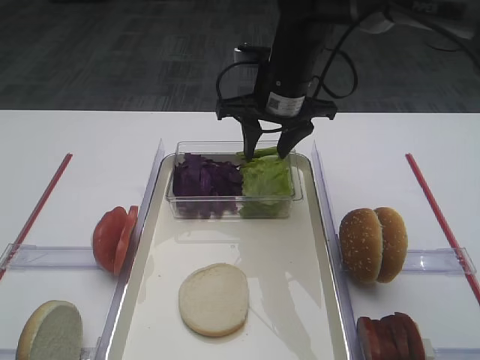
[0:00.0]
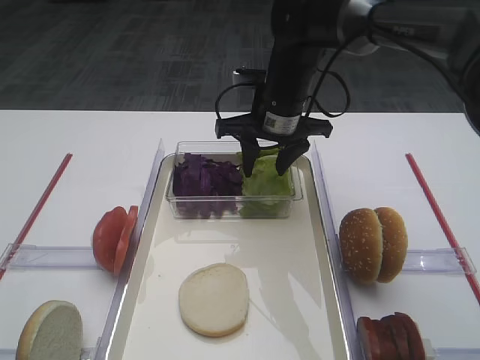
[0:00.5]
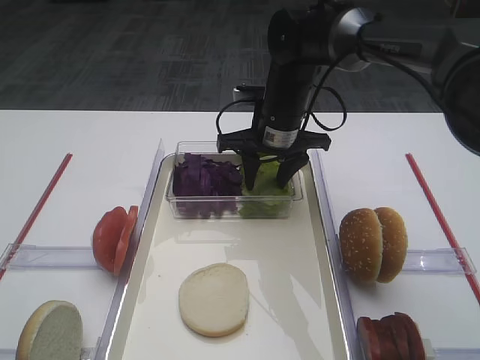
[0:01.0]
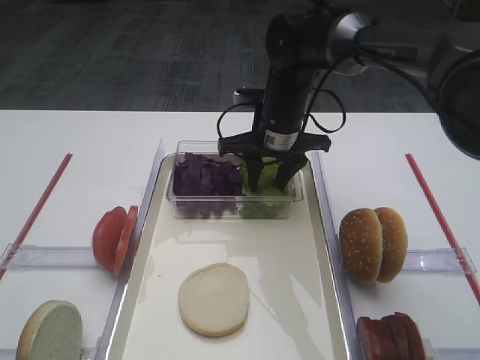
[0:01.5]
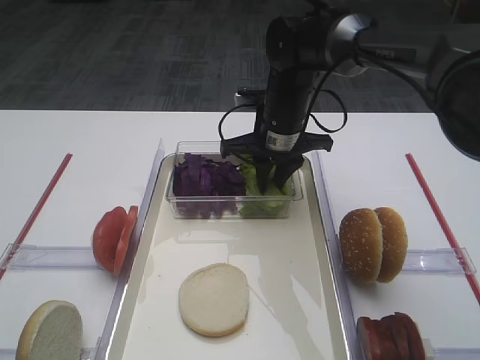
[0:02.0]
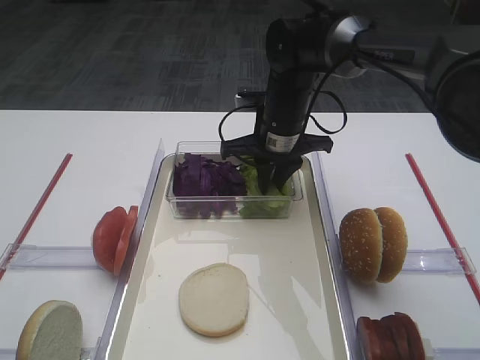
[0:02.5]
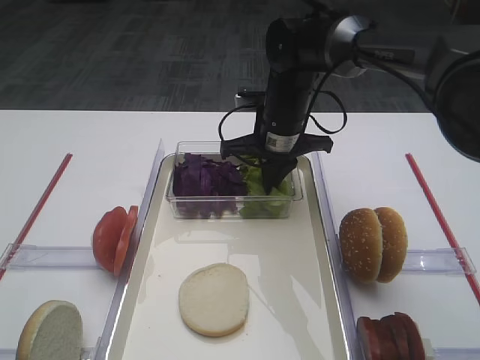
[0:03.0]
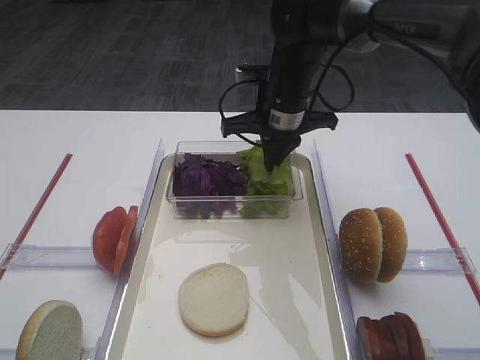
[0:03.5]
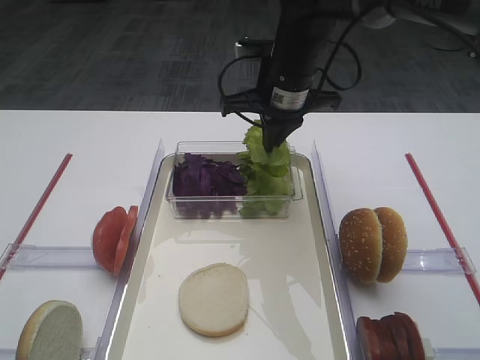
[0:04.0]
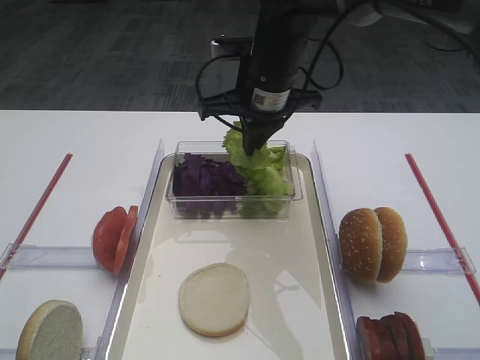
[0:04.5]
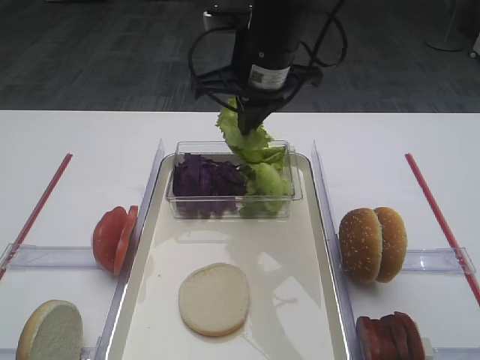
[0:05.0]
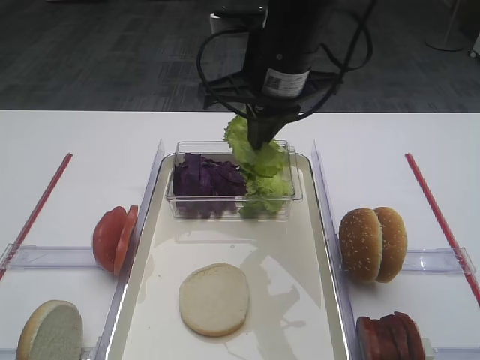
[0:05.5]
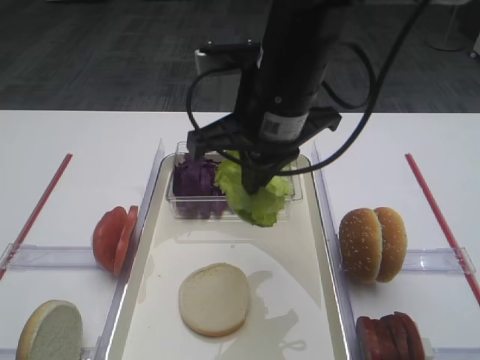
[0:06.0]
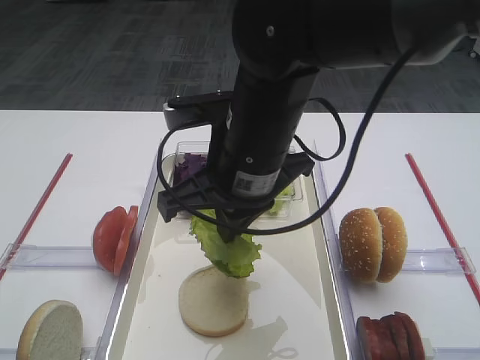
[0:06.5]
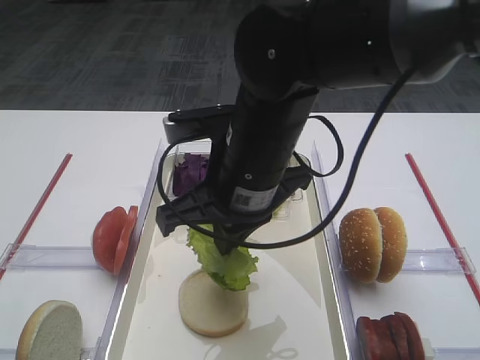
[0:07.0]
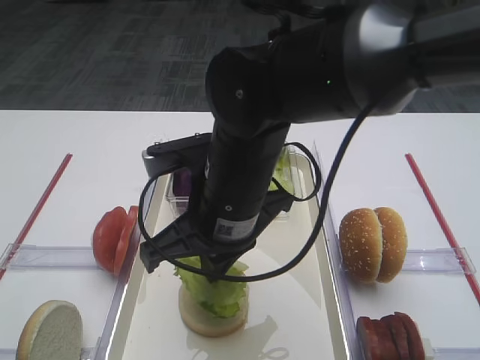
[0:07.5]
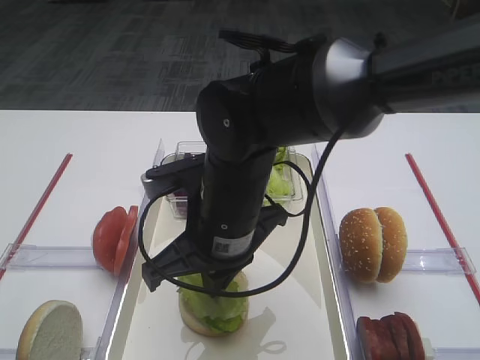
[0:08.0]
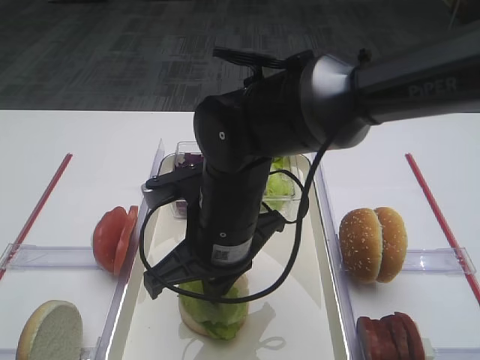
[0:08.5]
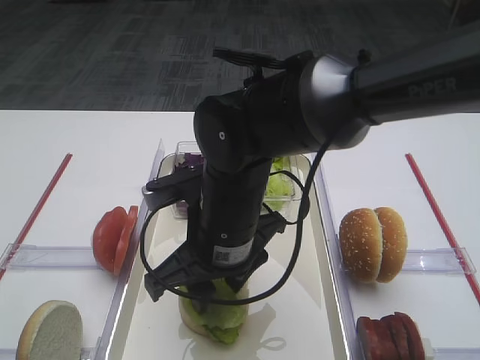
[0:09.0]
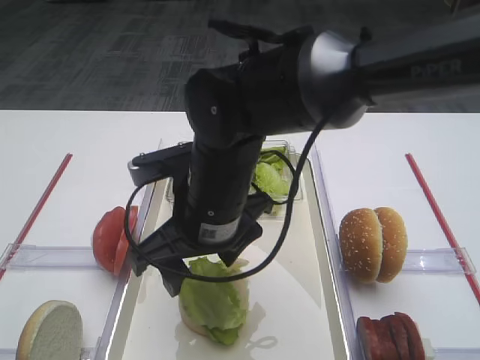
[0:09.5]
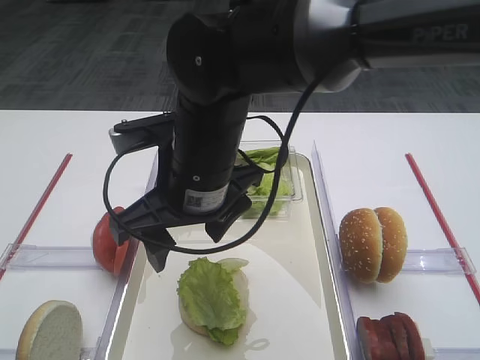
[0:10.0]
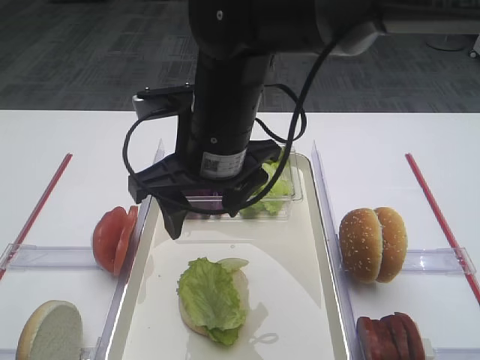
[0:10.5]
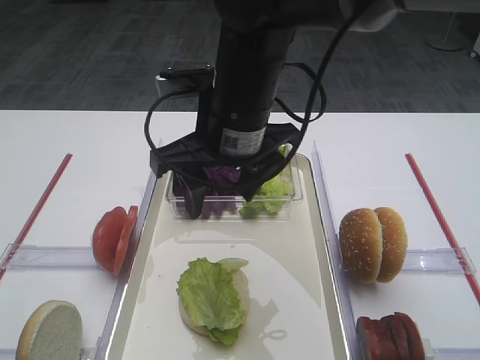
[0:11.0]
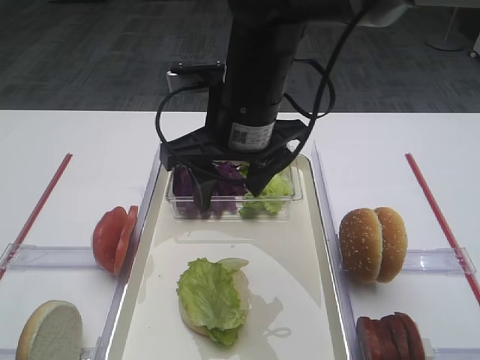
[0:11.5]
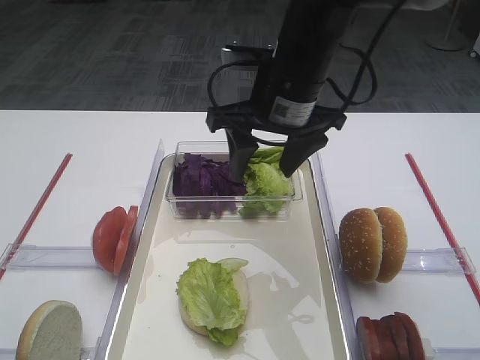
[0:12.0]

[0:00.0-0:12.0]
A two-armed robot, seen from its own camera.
Step, 0:00.0 to 0:04.0: Pick up the lettuce leaf with the right gripper.
Step, 0:04.5 to 0:09.5: Place the lettuce leaf on the bread slice with the right gripper.
0:00.0 to 0:02.0: The right gripper moves downward, some 5 cm.
0:02.0 to 0:04.0: The right gripper moves upward, approximately 5 cm.
0:04.0 to 0:06.0: The right gripper moves backward, approximately 15 cm.
0:06.0 to 0:08.0: The right gripper is displaced downward and to the left by approximately 10 cm.
0:08.0 to 0:10.0: The right gripper opens up.
0:10.0 to 0:12.0: The right gripper is displaced to the right and forward by some 10 cm.

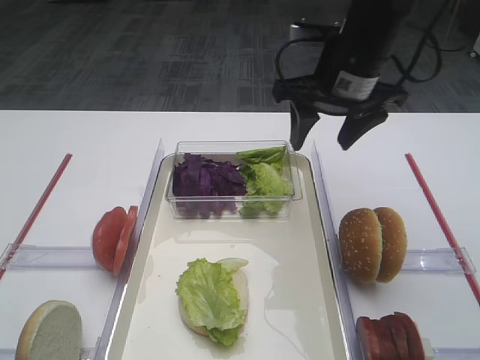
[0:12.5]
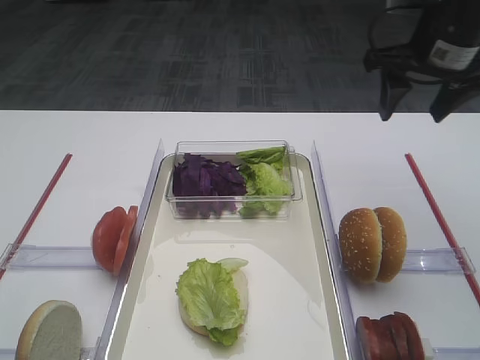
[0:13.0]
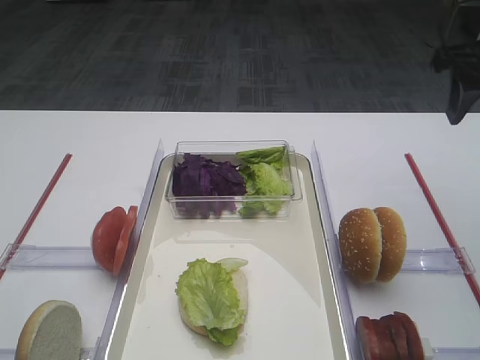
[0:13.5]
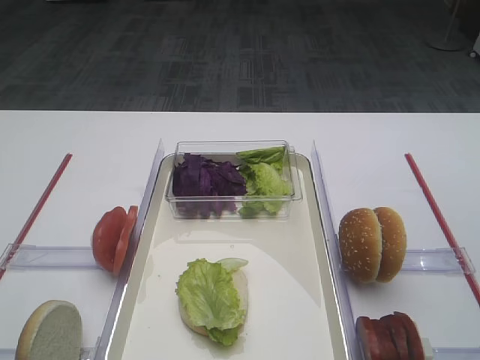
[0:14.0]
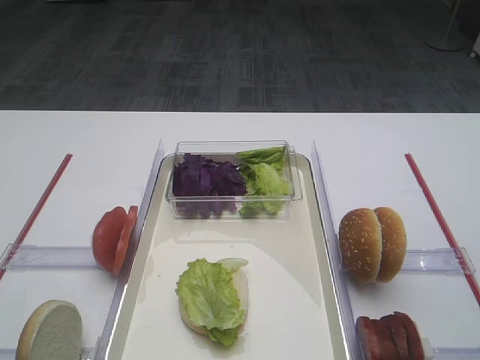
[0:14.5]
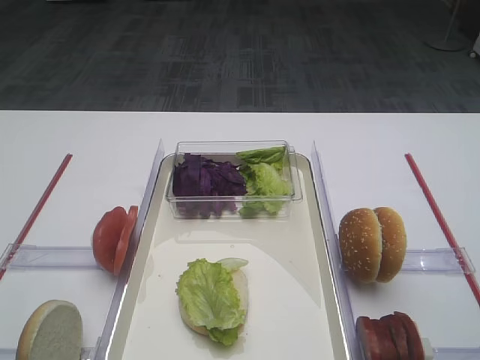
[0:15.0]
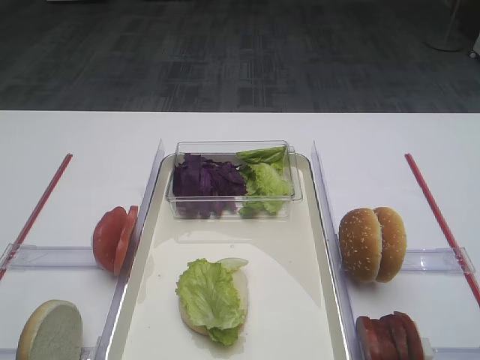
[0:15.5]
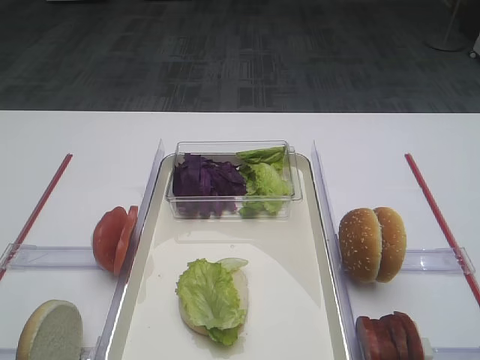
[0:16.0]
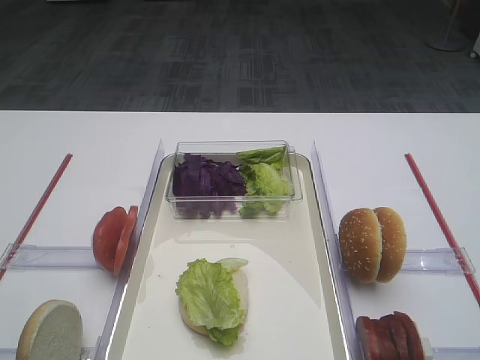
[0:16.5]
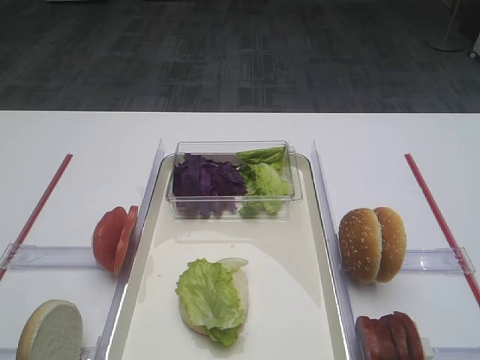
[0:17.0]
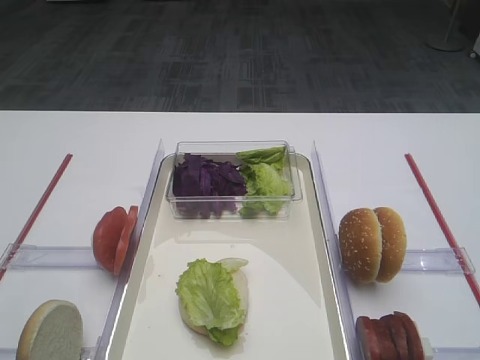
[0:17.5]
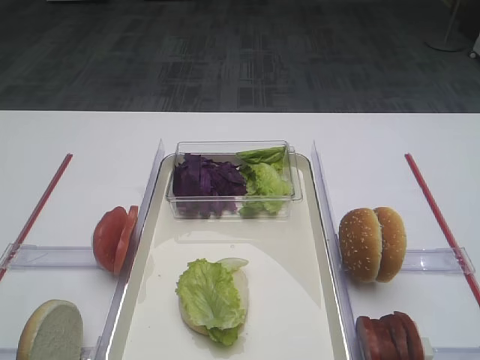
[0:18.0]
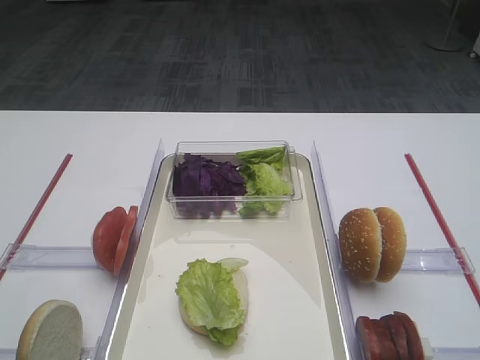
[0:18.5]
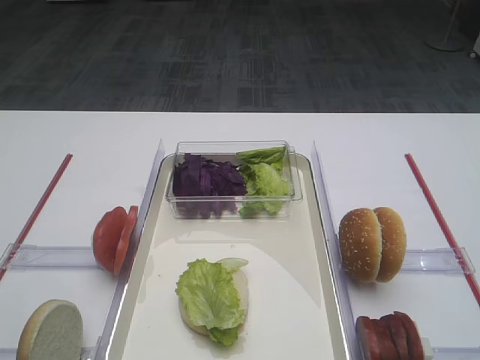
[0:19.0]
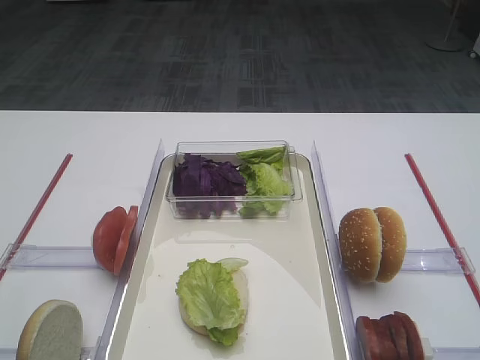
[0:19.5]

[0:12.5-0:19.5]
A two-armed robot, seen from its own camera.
0:12.5 to 0:14.5: The right gripper is displaced backward, to the right and upward by about 25 cm.

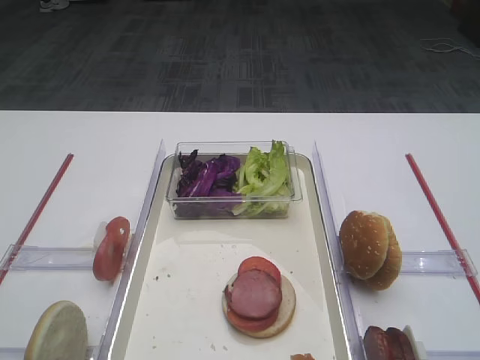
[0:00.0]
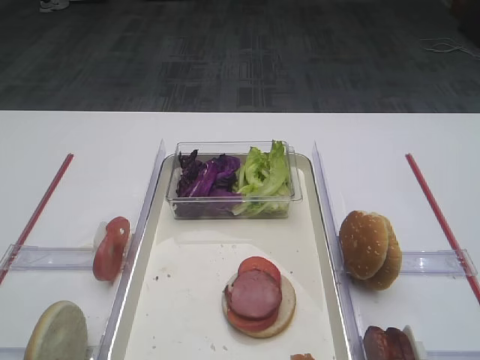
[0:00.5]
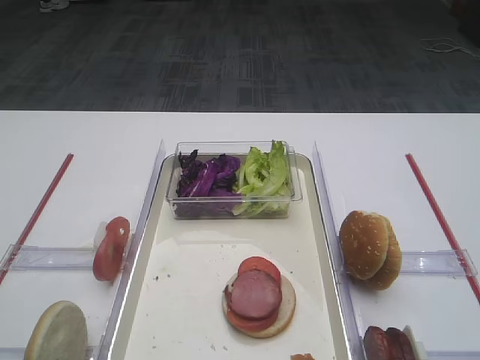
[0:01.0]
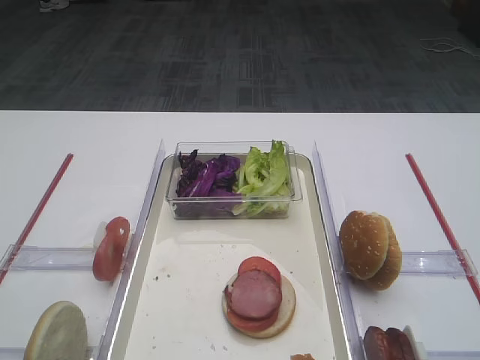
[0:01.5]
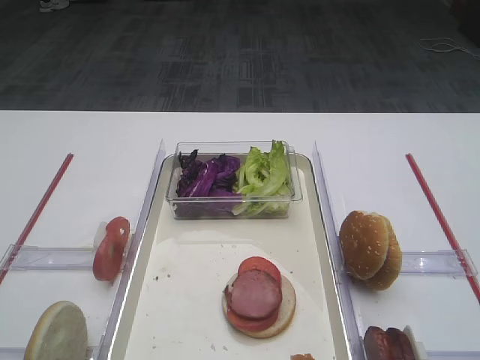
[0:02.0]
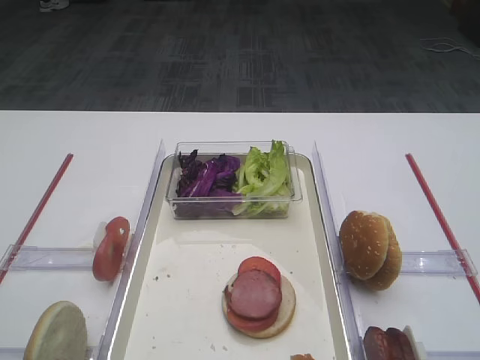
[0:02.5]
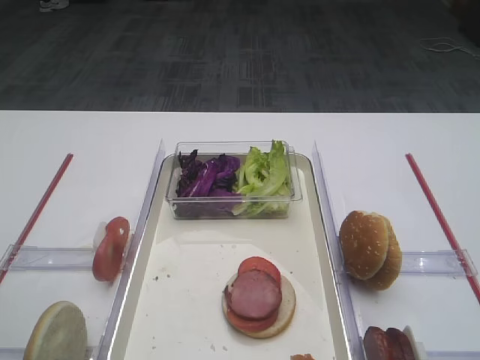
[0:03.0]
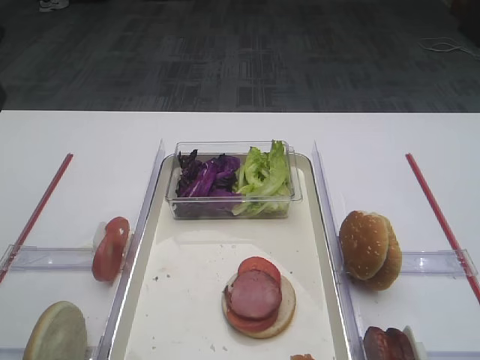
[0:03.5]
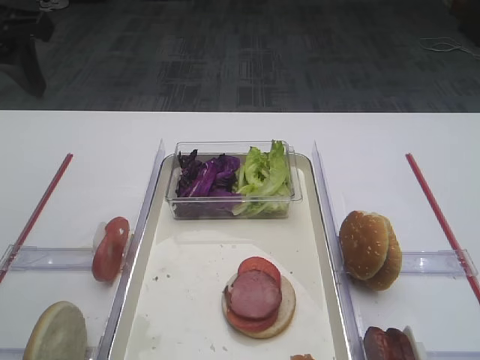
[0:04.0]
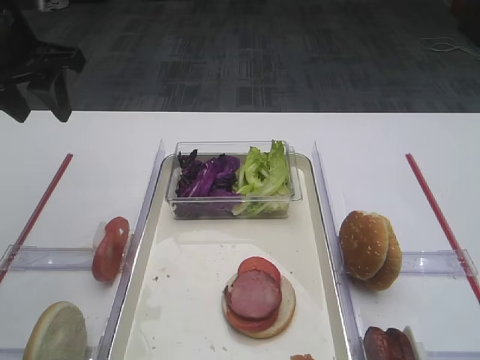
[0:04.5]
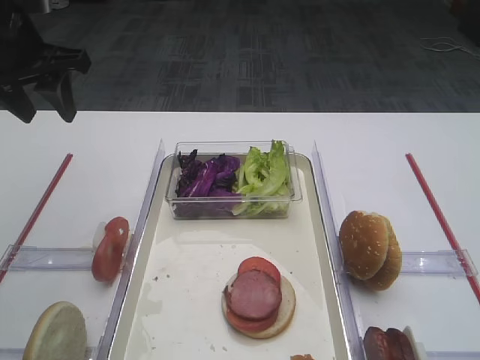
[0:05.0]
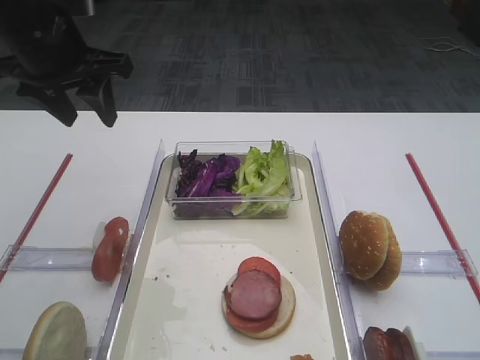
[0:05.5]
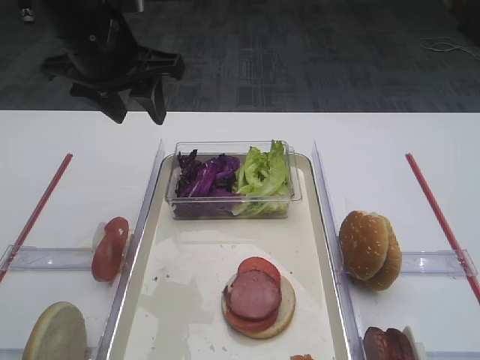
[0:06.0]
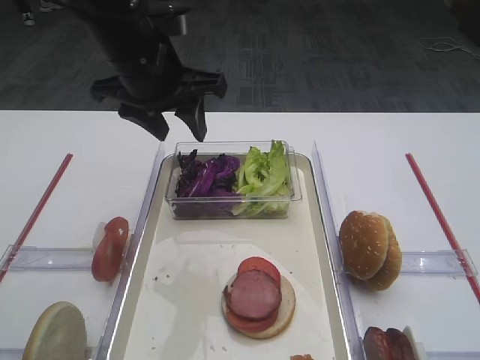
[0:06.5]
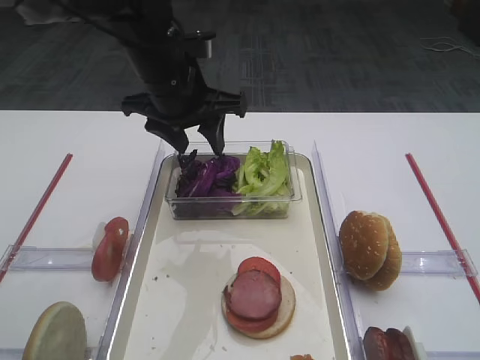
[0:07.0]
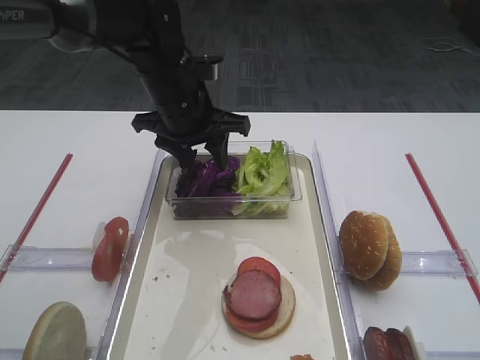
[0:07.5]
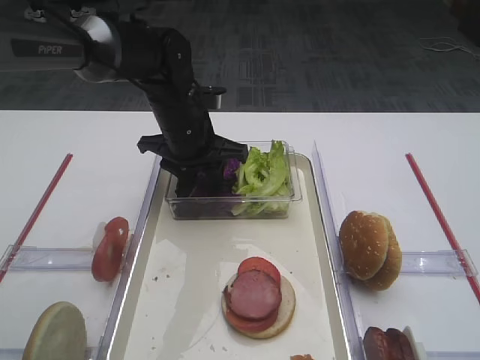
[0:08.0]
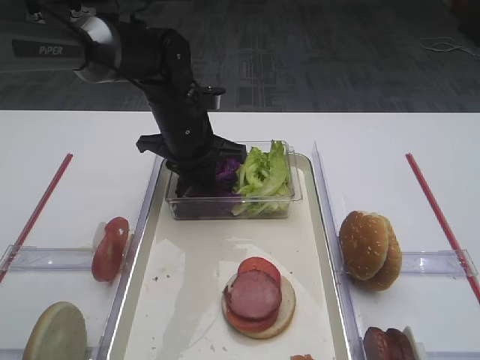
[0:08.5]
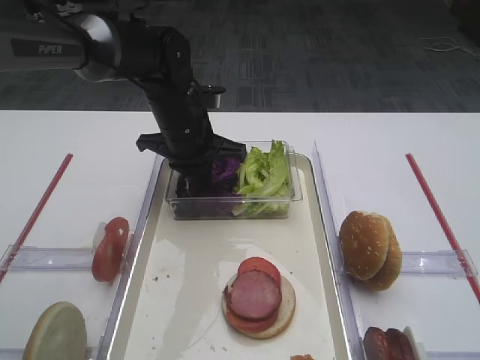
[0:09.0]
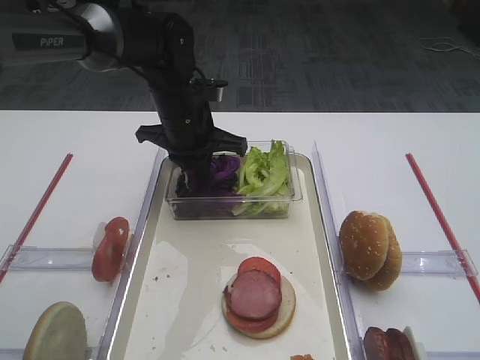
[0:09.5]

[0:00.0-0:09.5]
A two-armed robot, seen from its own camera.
0:02.0 to 0:04.0: The left gripper shifts roughly 30 cm forward.
0:04.0 to 0:05.5: The left gripper moves forward, downward and to the right, about 10 cm.
0:05.5 to 0:07.5: The left gripper heads to the right and downward, covering some 15 cm.
0:07.5 to 0:09.5: The left gripper closes up.
